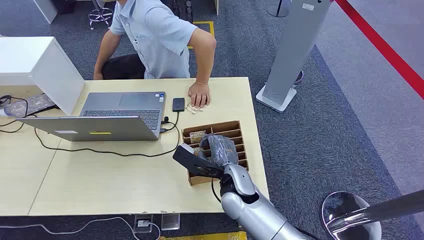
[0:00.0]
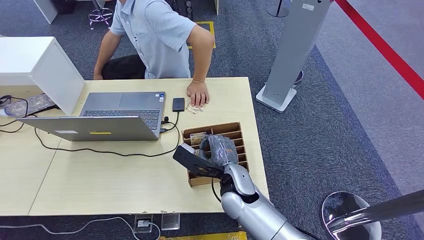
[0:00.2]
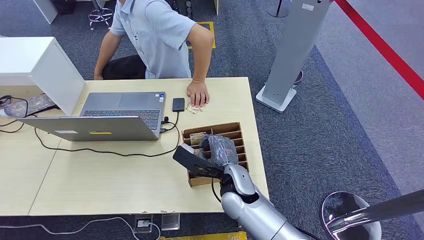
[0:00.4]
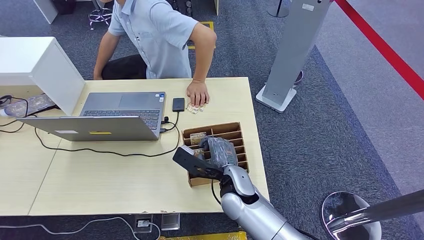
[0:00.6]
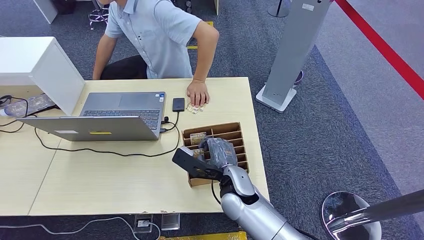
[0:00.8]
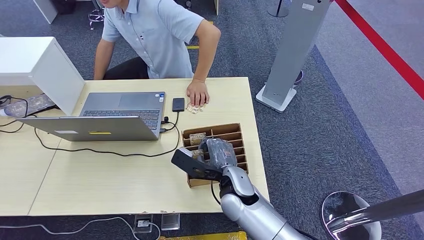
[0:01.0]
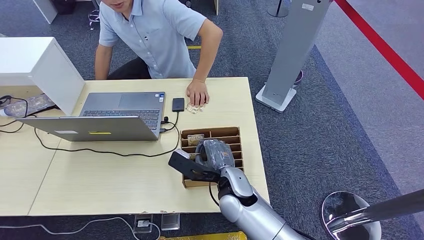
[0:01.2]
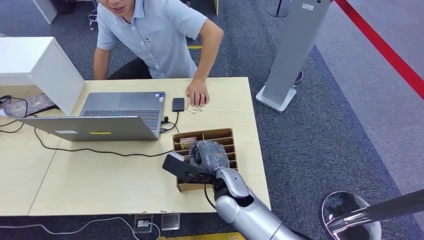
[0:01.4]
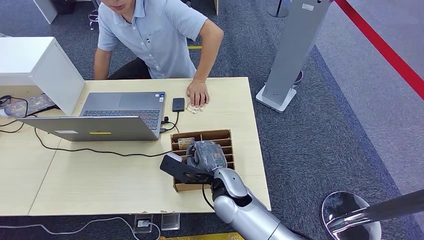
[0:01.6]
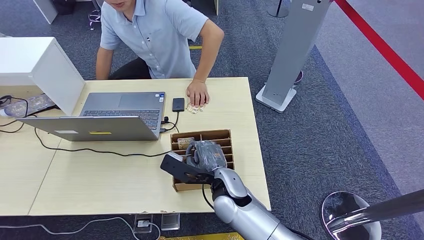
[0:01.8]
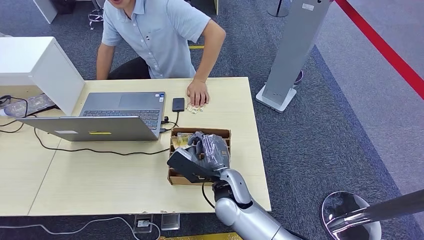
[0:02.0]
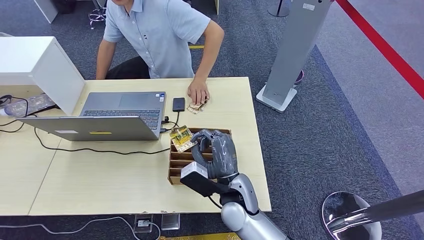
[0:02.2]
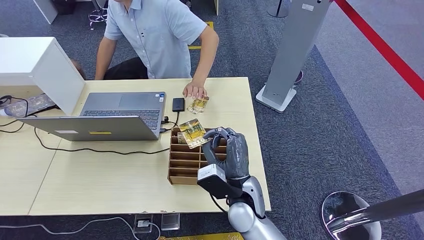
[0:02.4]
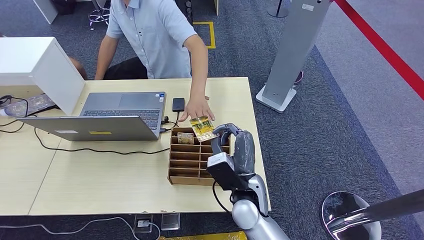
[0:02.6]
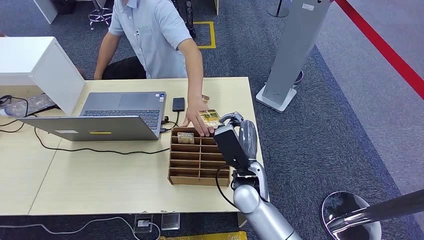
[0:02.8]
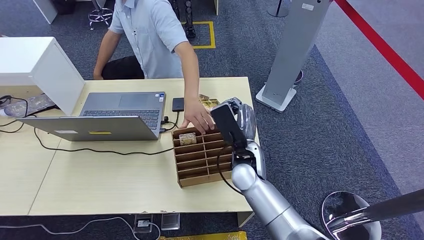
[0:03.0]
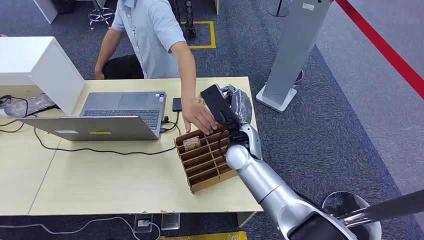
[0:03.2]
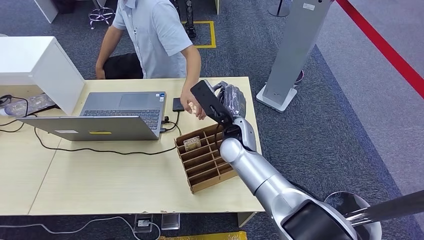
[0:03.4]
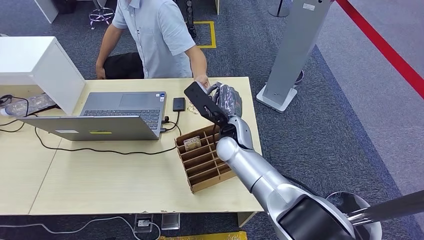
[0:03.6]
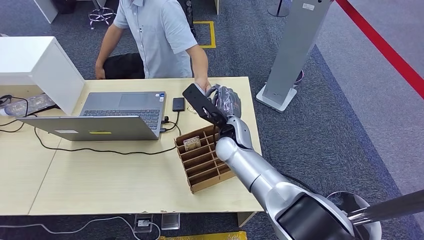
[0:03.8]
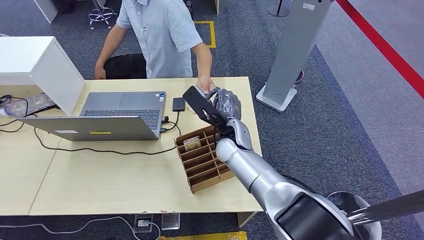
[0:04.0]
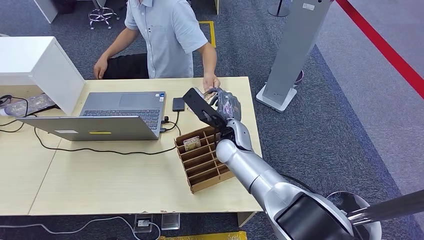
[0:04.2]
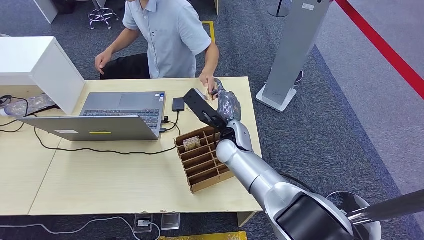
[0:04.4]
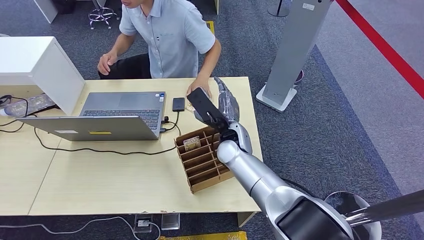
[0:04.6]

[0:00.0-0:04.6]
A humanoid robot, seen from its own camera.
Step, 0:00.0 to 0:02.2: Pick up the key card from the card box.
Step, 0:03.2 to 0:04.6: Hand the key card to the target.
0:01.6 to 0:03.0: The right hand heads forward, covering approximately 5 cm.
0:03.0 to 0:04.6: The right hand is displaced forward by about 5 cm.
